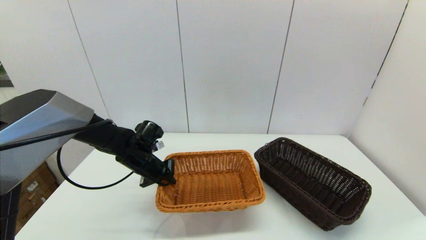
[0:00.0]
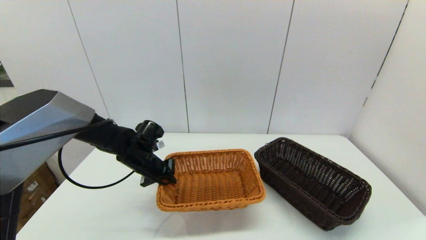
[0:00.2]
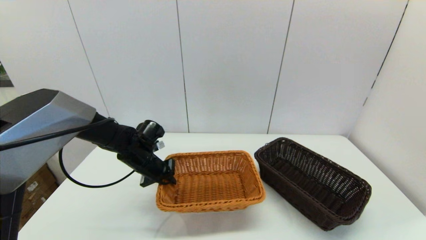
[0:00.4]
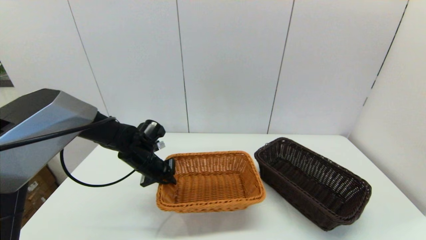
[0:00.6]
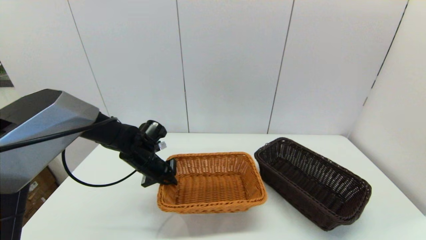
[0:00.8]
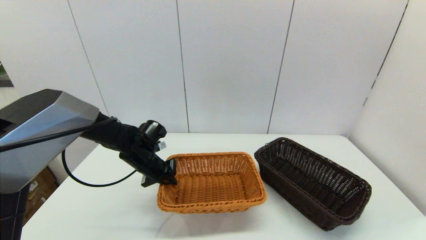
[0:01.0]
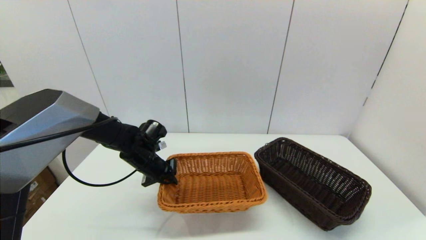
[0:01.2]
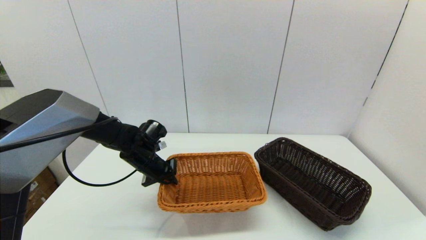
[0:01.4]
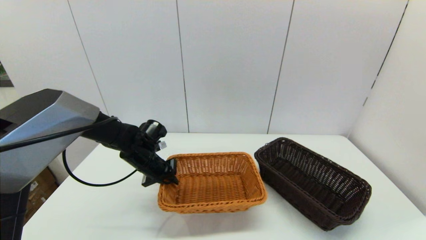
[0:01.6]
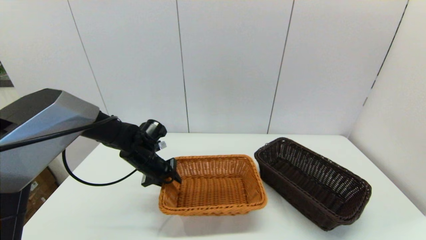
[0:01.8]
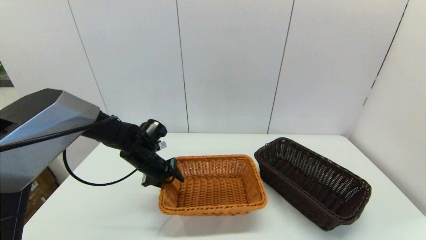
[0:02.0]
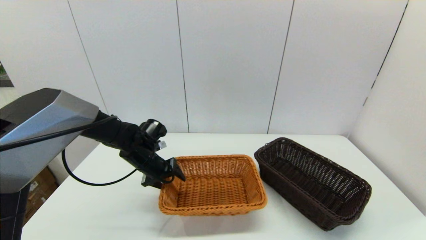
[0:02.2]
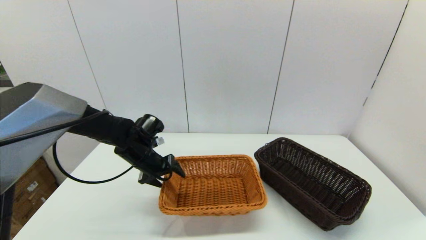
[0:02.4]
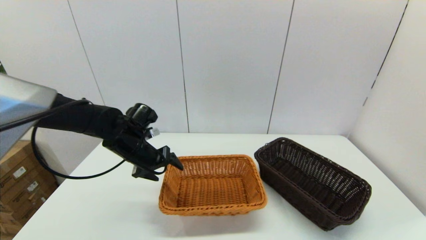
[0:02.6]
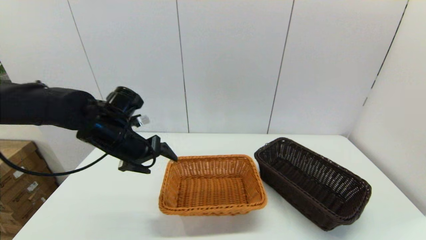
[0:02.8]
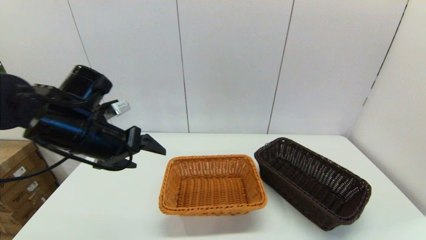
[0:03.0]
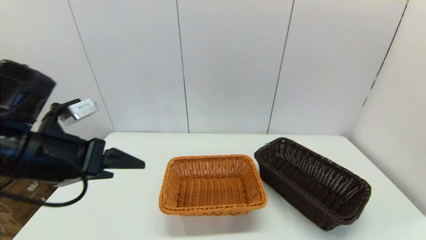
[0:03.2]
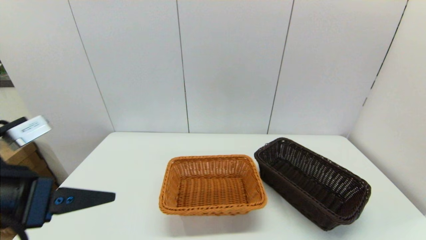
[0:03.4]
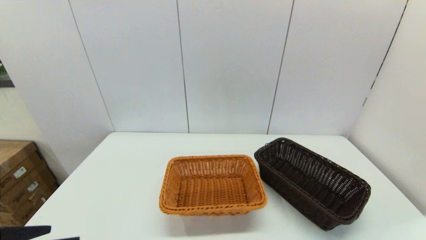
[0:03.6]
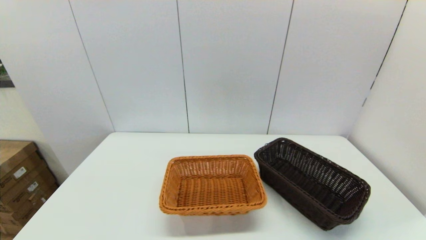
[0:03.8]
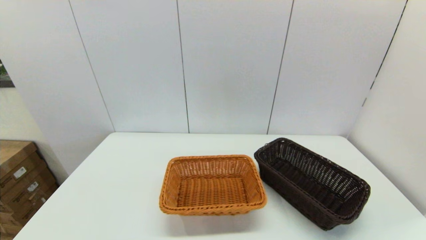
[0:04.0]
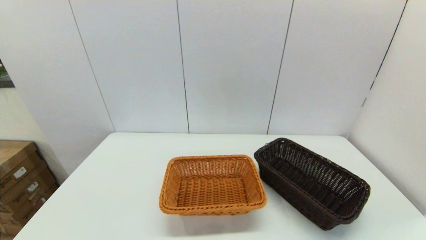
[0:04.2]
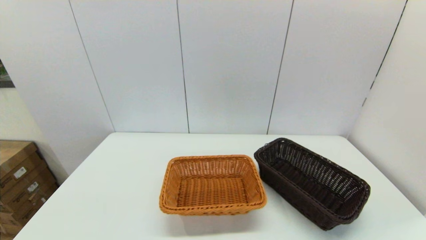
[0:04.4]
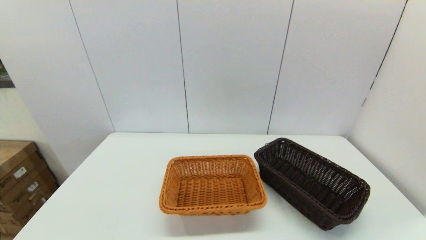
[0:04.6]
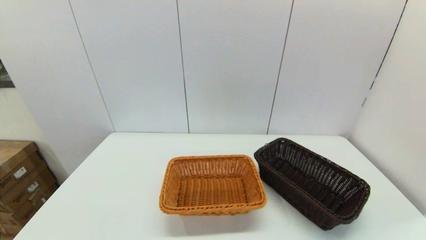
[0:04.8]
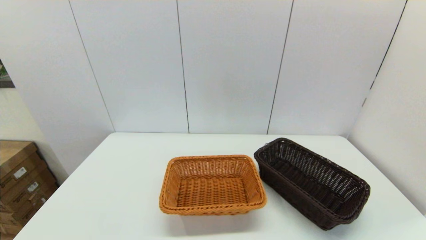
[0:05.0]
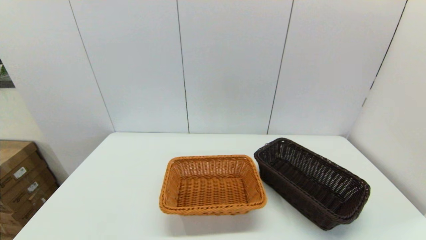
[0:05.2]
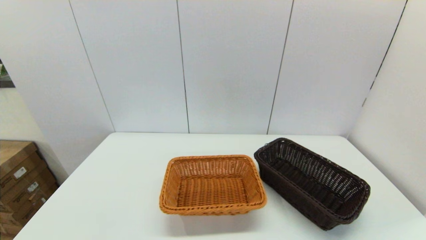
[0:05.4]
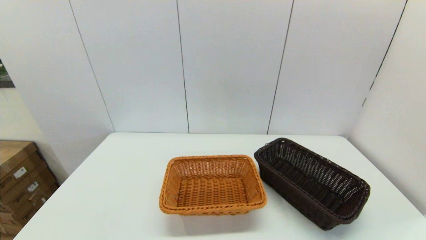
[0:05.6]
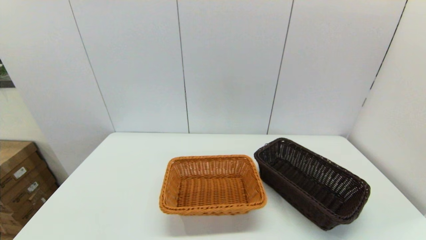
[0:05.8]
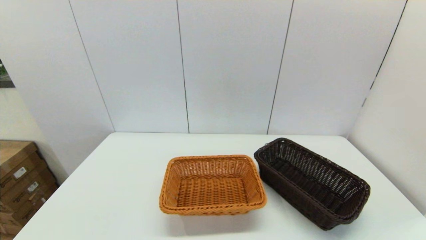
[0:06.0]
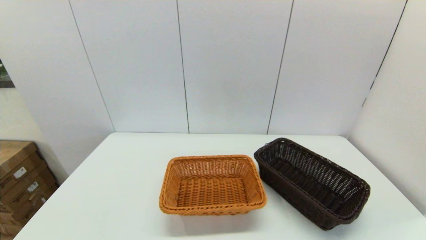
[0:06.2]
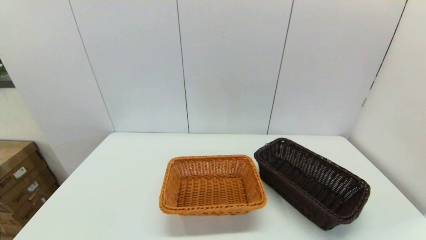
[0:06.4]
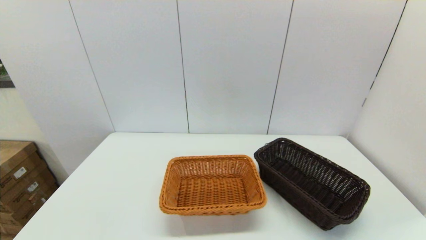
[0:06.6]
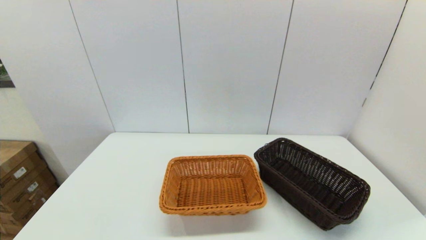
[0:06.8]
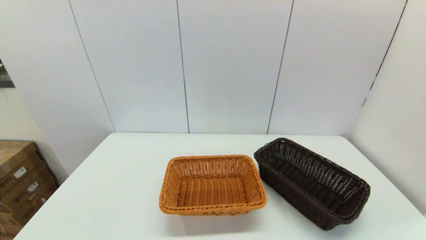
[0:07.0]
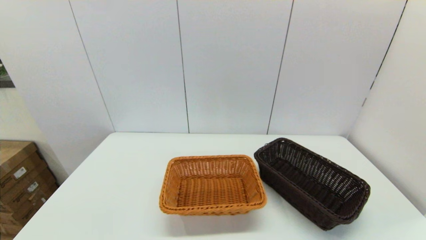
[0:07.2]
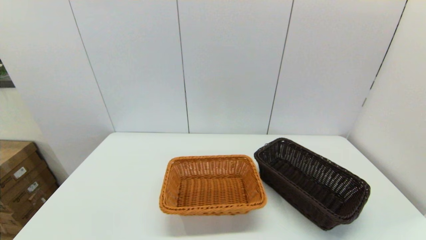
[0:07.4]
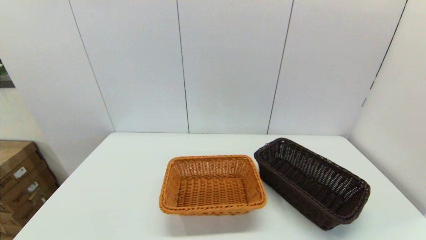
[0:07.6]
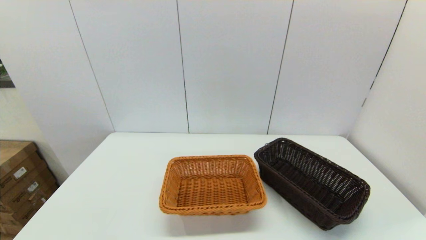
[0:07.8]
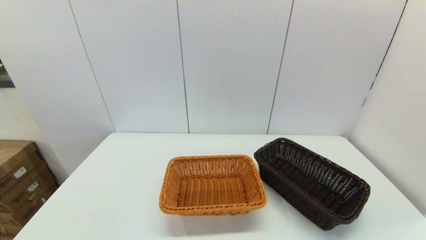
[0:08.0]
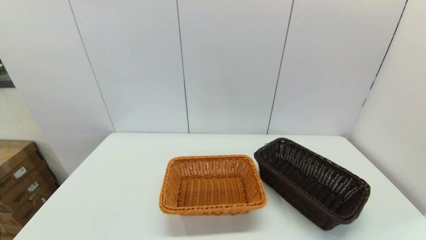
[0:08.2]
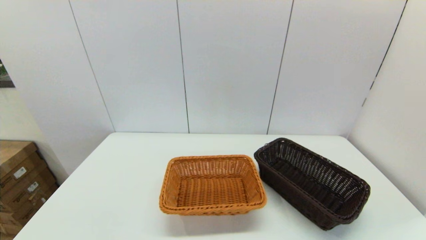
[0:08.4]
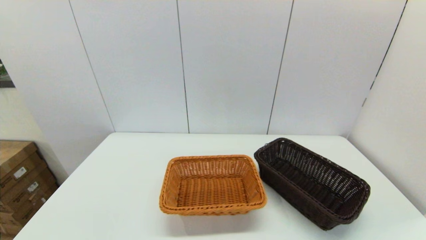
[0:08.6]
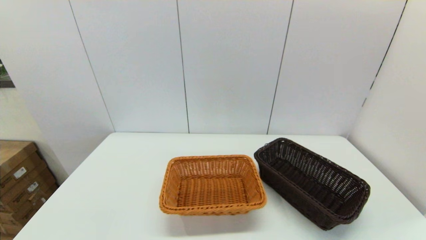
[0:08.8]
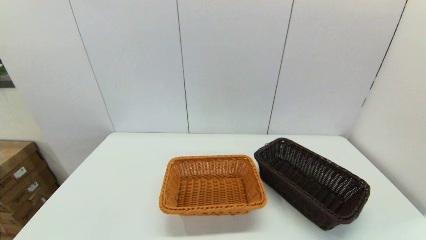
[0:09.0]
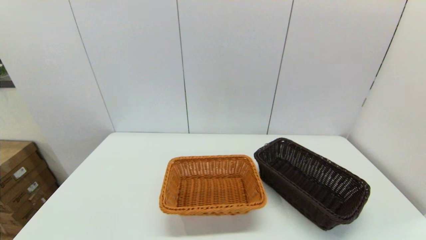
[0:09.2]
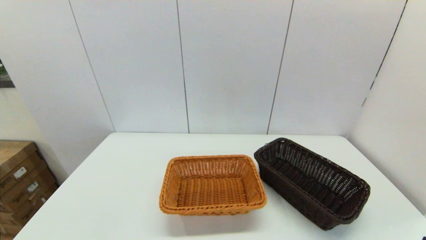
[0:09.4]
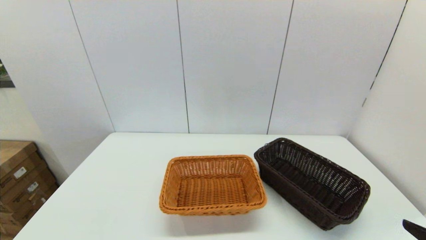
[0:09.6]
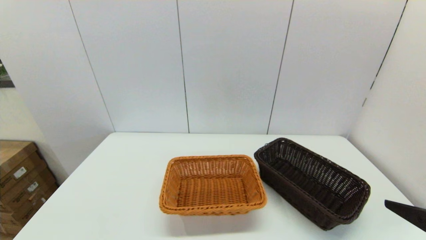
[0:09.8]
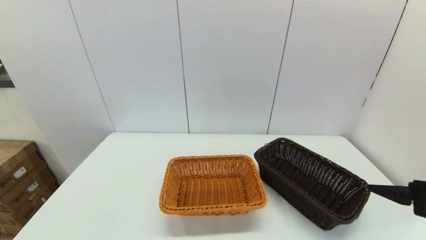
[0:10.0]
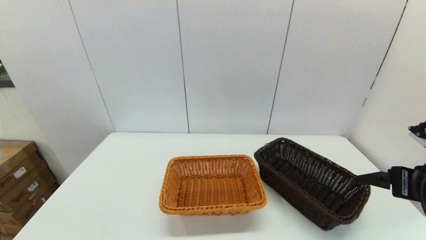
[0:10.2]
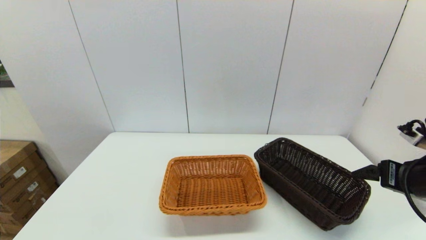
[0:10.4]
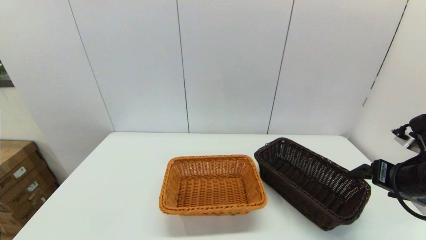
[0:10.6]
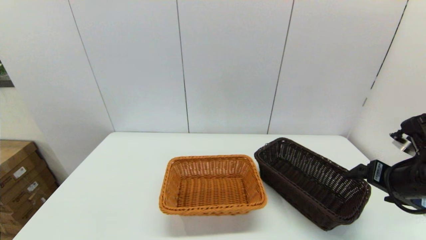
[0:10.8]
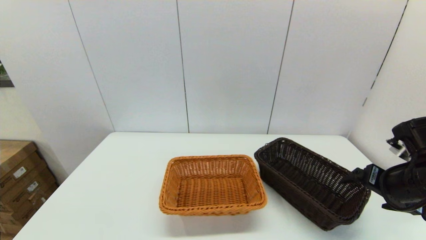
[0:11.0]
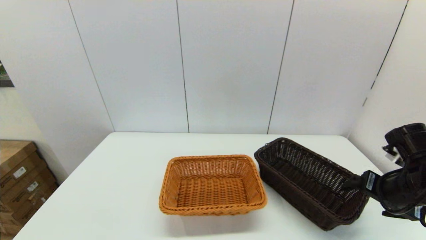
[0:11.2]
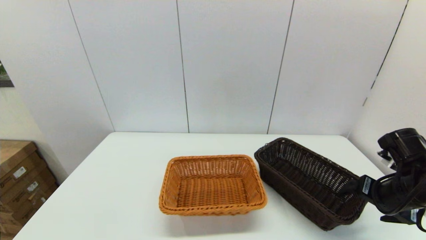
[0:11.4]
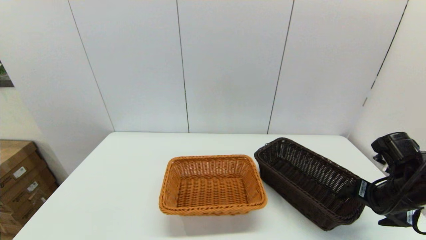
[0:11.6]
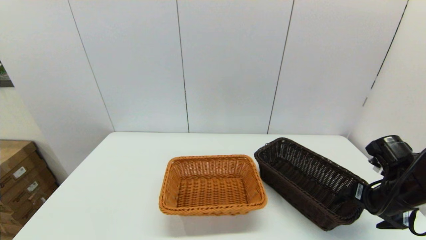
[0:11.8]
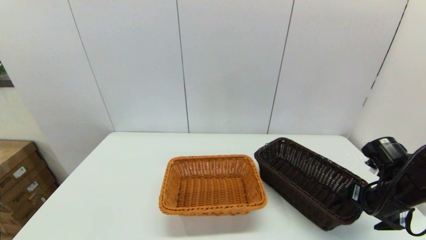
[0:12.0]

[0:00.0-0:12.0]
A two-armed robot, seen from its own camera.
Task of the whole recording: stack a basket on top of another basket.
Step, 0:00.0 to 0:03.0: Place the light basket on the middle of the table with the left gripper.
0:00.0 to 0:01.6: Neither gripper changes place.
0:01.6 to 0:03.0: The left gripper shifts approximately 20 cm upward and backward, and opens.
0:03.0 to 0:04.4: The left gripper goes approximately 30 cm backward.
0:06.0 to 0:07.6: Both grippers stay put.
0:09.0 to 0:10.4: The right gripper moves forward, about 25 cm.
0:10.4 to 0:12.0: The right gripper travels downward by roughly 10 cm.

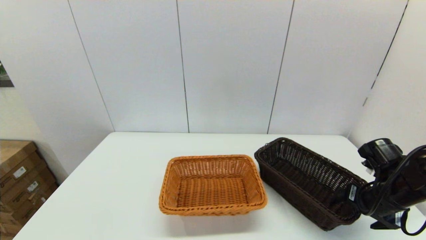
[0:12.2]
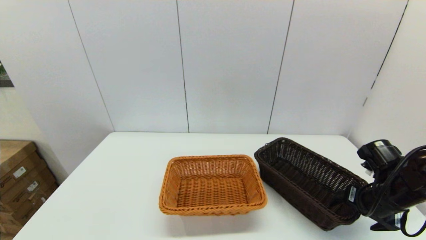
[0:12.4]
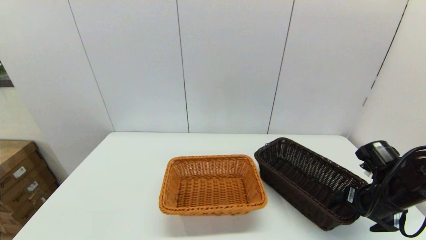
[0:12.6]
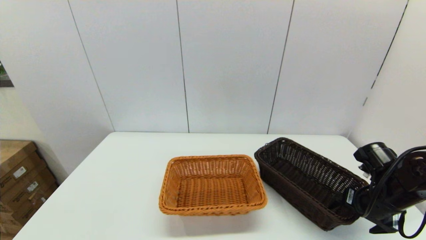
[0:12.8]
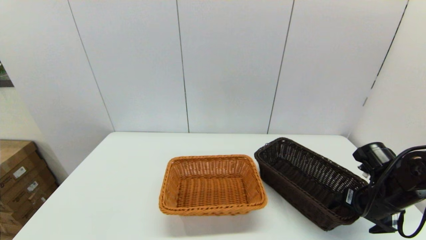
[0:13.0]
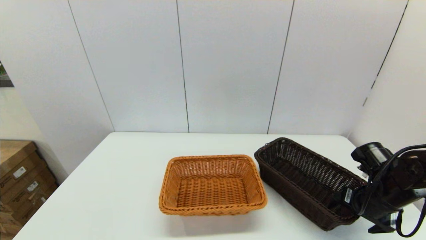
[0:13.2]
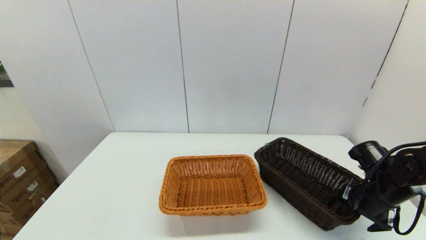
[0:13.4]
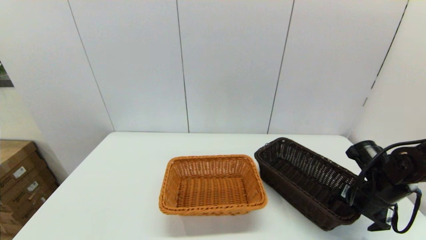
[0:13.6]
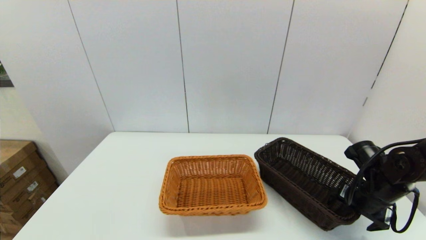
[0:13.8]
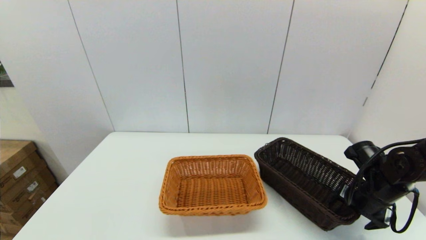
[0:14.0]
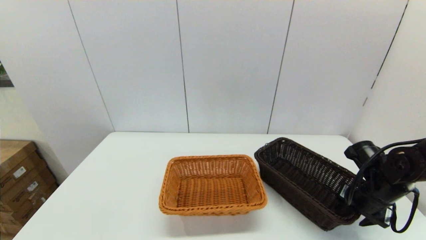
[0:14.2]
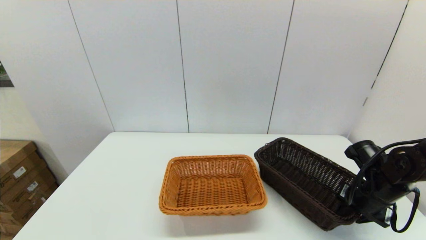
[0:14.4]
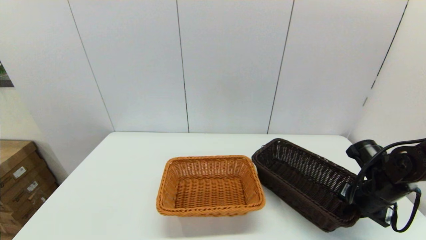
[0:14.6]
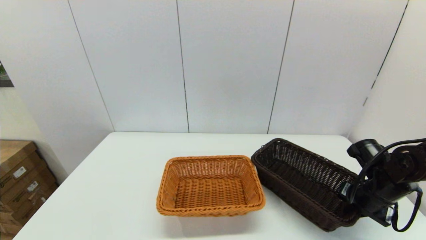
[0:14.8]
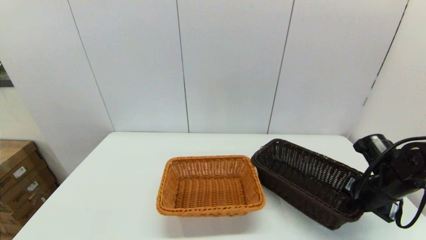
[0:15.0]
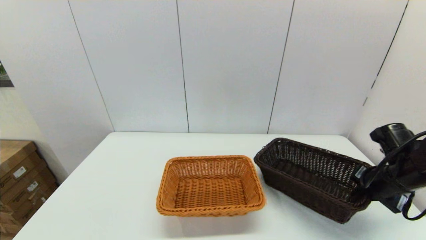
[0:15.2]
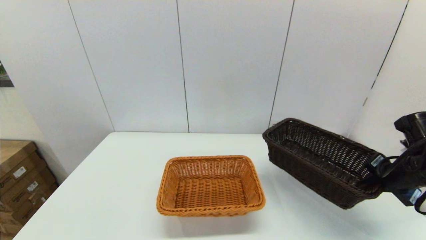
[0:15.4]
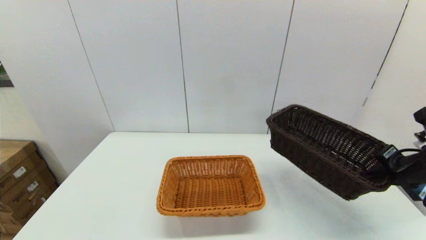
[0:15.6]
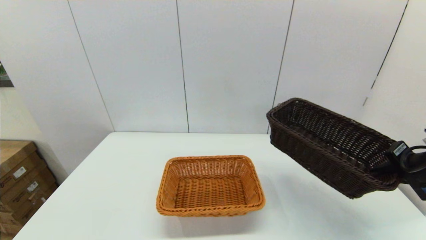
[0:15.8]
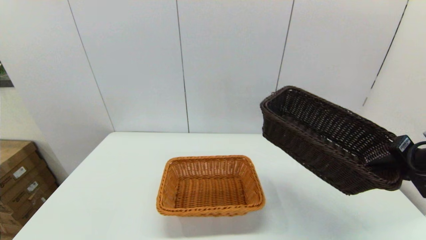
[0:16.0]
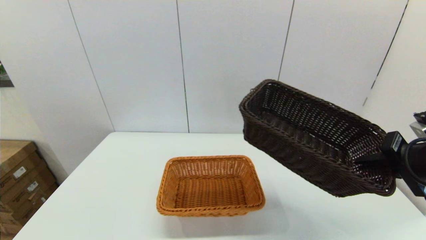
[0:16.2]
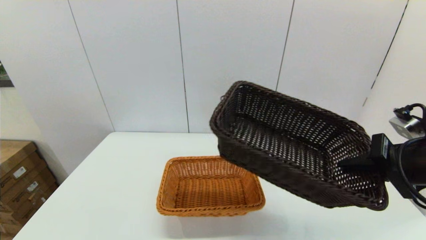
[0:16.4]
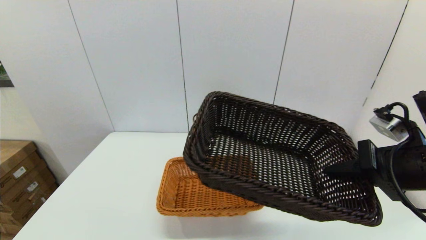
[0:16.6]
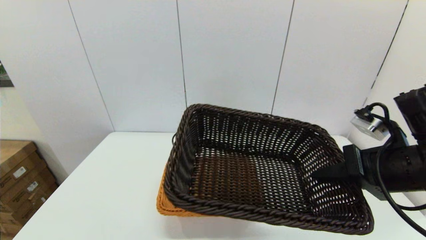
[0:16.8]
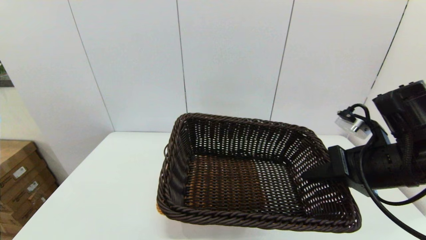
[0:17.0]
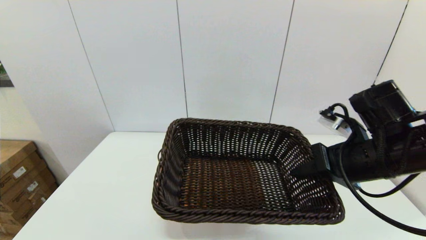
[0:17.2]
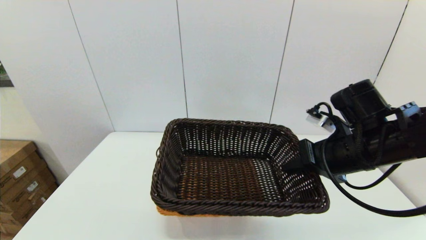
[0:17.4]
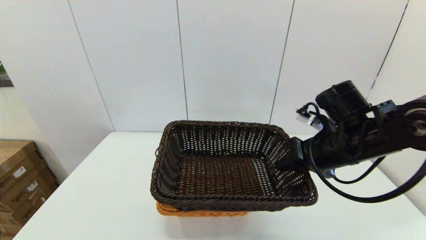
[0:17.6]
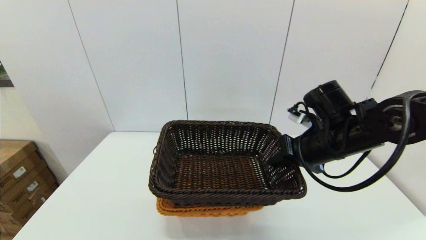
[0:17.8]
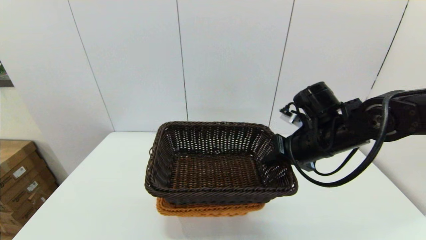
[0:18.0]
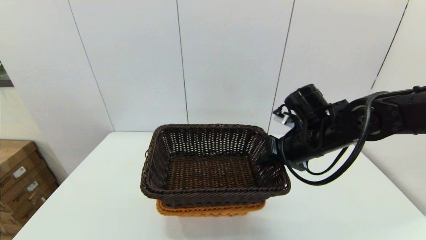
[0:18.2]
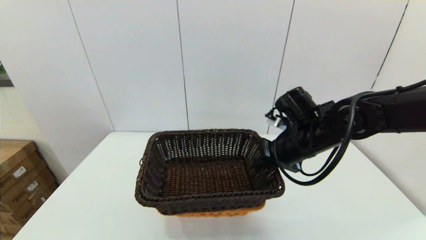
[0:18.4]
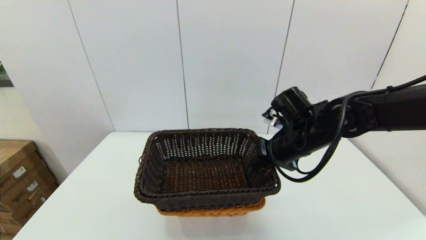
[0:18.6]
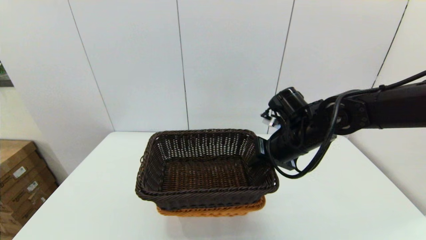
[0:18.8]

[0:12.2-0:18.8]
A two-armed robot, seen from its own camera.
Task of the whole recording: stack a basket on top of another basket.
Step, 0:12.2 to 0:15.0: Grasp the dark basket with the right gripper.
0:12.2 to 0:13.8: The grippers move only a little.
0:13.8 to 0:15.4: The right gripper travels upward by some 10 cm, and closes its fingers.
0:15.4 to 0:17.2: The right gripper travels to the left and upward by about 15 cm.
0:17.2 to 0:18.8: The right gripper heads forward and to the left, covering roughly 10 cm.
